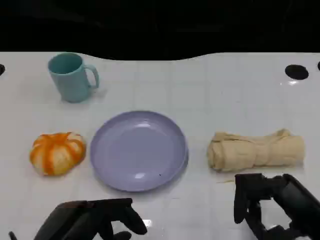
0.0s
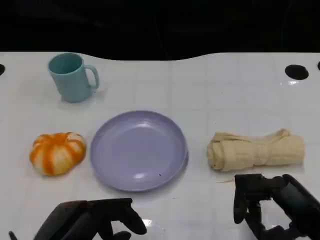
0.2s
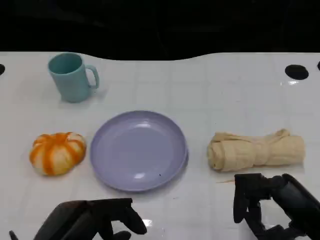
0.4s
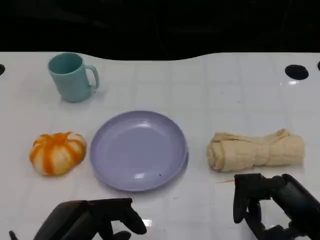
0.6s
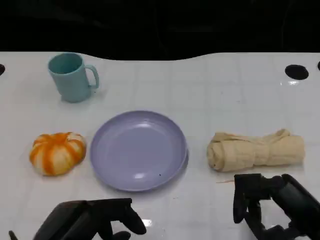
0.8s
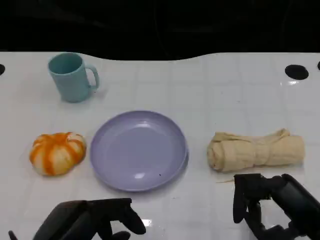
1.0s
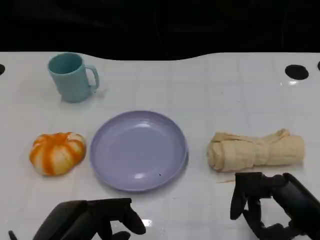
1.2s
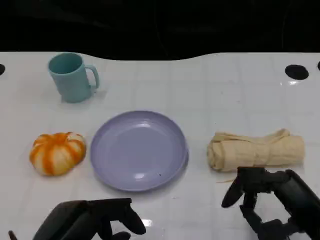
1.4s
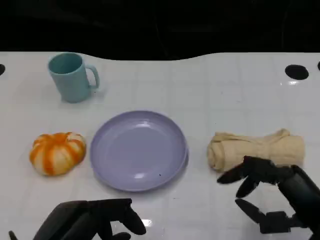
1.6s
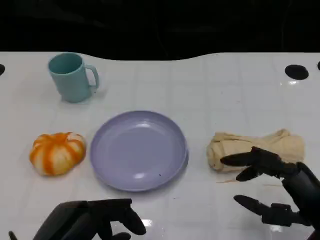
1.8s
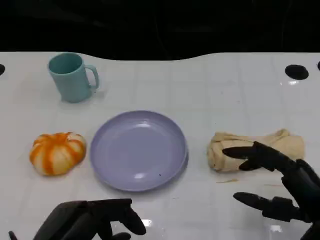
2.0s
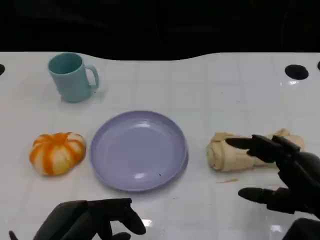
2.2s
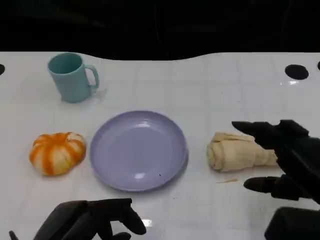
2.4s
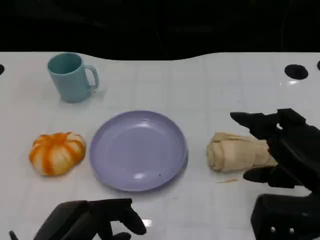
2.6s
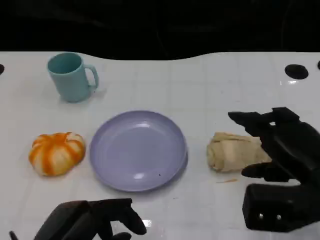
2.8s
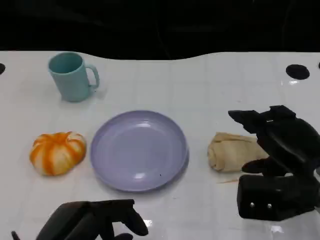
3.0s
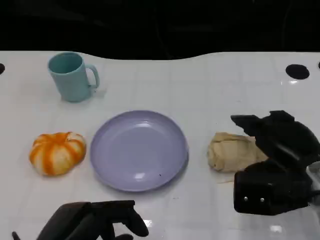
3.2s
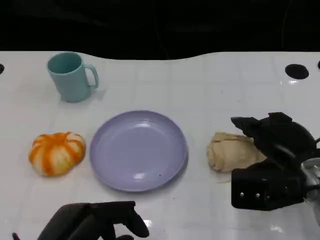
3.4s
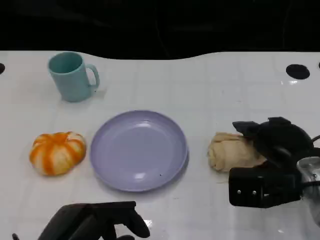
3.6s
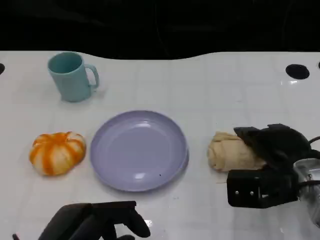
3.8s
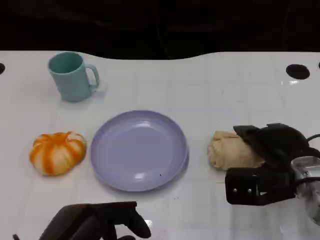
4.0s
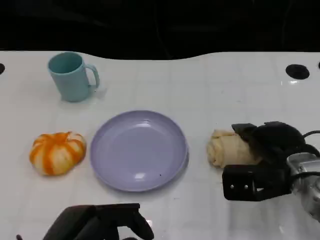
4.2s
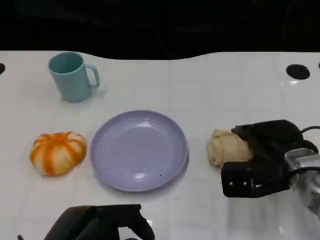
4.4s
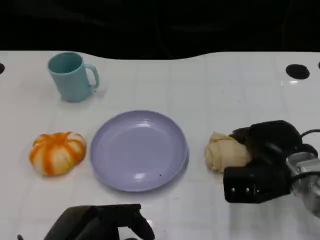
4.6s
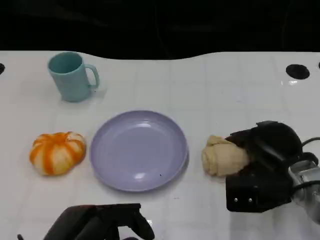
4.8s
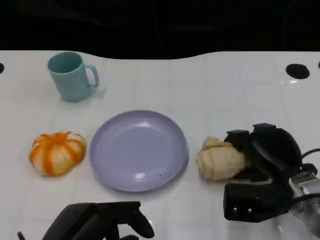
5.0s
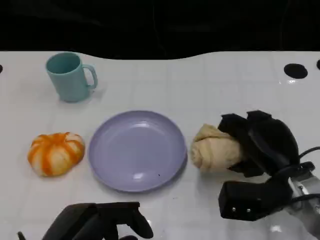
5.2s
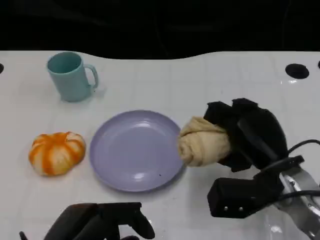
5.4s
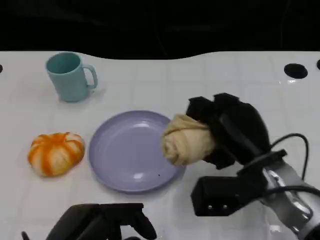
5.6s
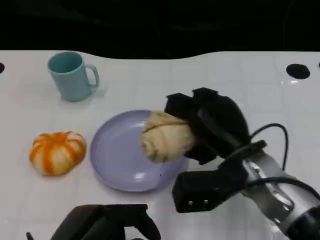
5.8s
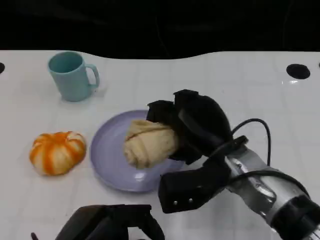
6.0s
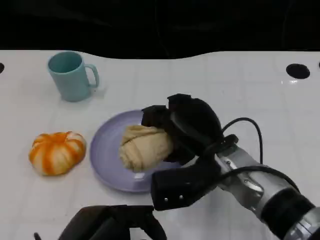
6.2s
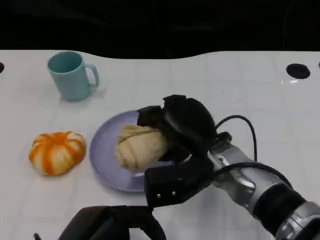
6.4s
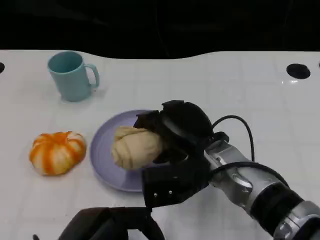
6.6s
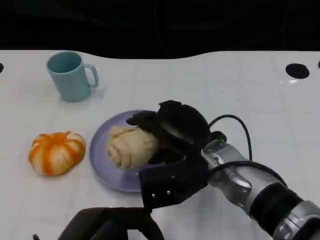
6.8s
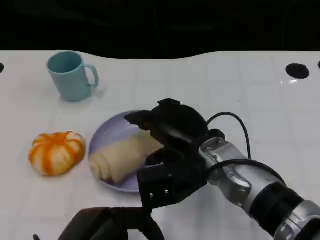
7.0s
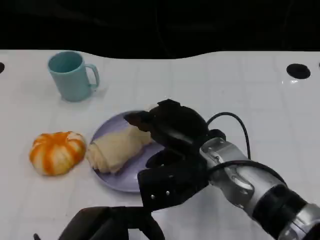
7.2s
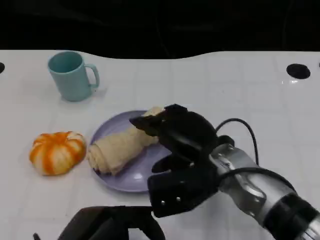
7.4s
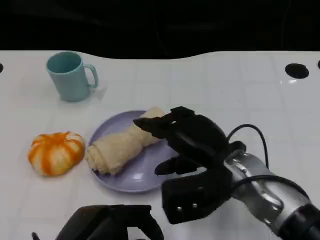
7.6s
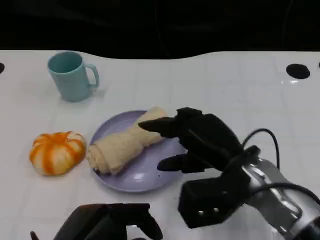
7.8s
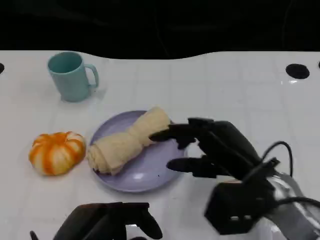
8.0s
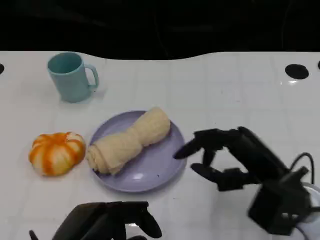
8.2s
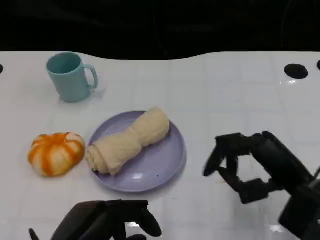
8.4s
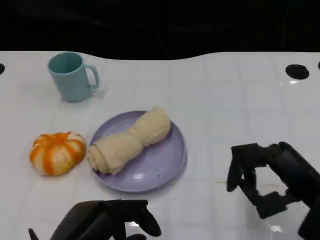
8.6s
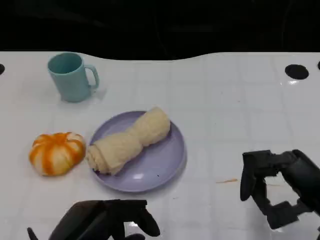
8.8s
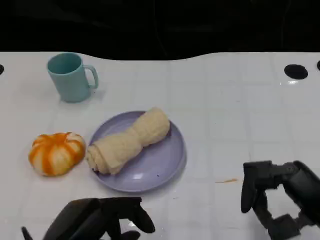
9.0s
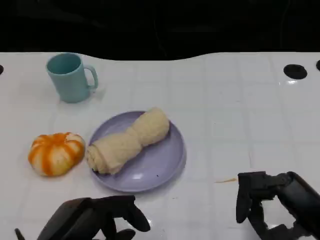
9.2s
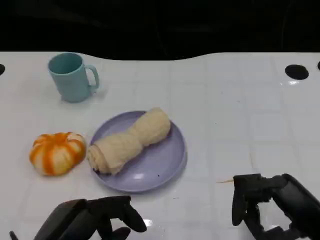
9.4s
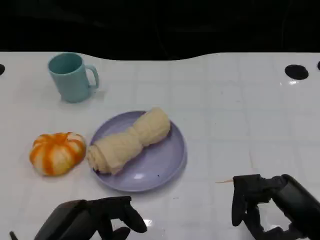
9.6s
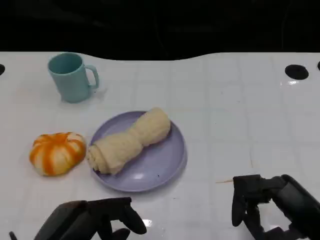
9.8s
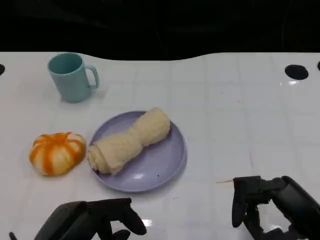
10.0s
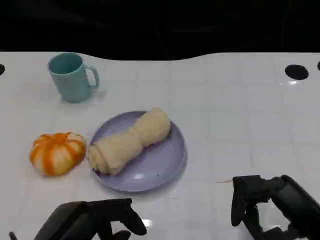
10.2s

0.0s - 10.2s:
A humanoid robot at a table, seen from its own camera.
Task of the whole recording: Grasp the towel on the left side of the plate with the left hand and place it into the plate.
0.0s - 1.4s: The hands stay close to where they were, moving slightly.
1.4s - 3.0s: The right hand moves forward, approximately 10 cm.
3.0s - 4.4s: The right hand changes place by roughly 5 cm.
4.4s - 5.8s: The right hand is displaced to the left by about 10 cm.
7.2s - 8.8s: The right hand moves to the right and backward, about 20 cm.
8.8s - 10.2s: The hands make only small movements.

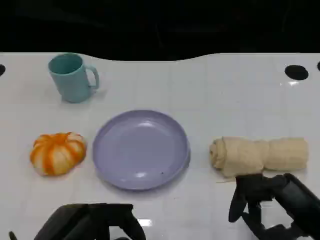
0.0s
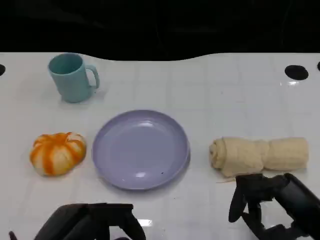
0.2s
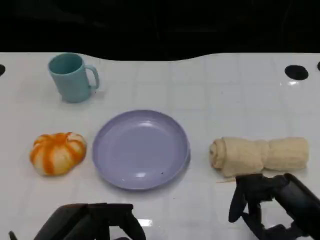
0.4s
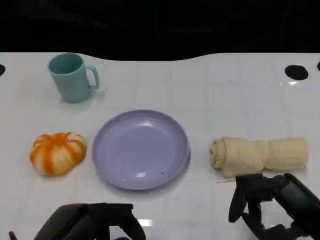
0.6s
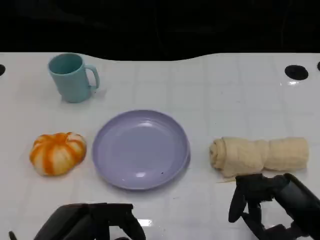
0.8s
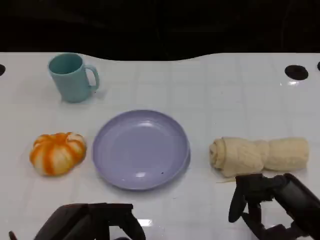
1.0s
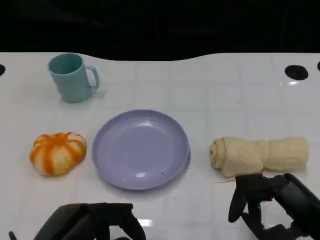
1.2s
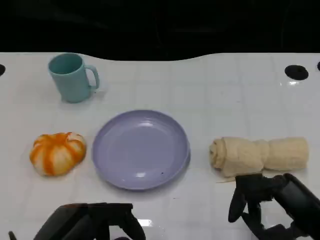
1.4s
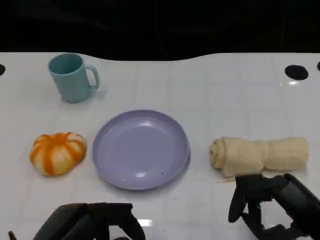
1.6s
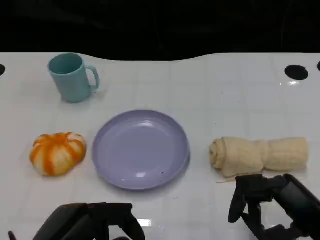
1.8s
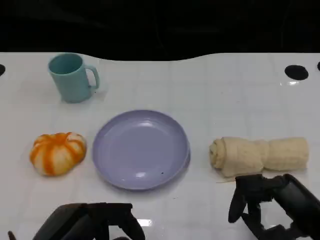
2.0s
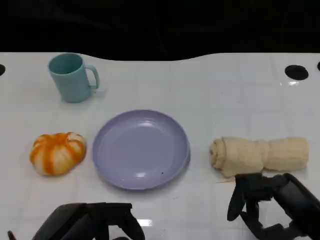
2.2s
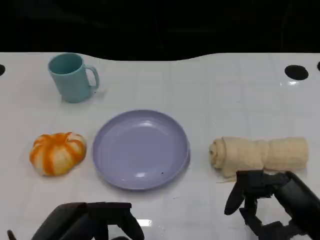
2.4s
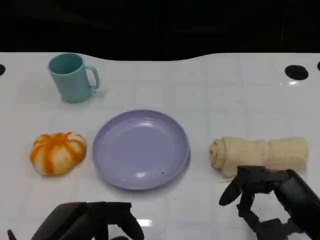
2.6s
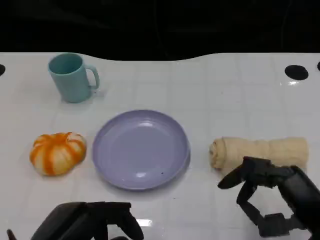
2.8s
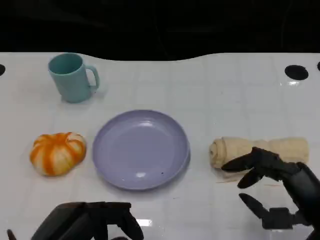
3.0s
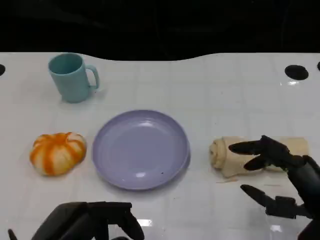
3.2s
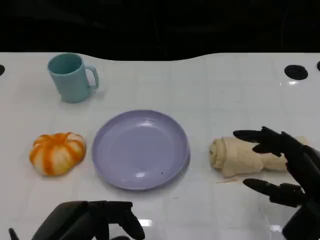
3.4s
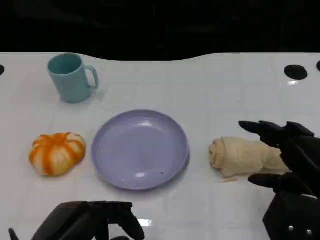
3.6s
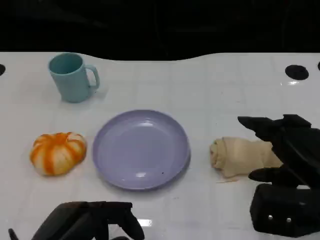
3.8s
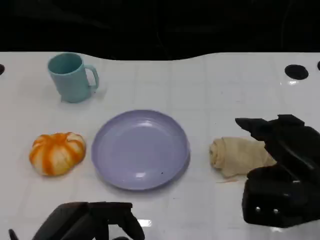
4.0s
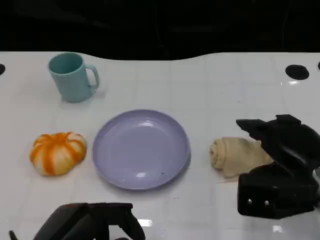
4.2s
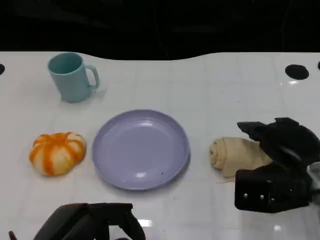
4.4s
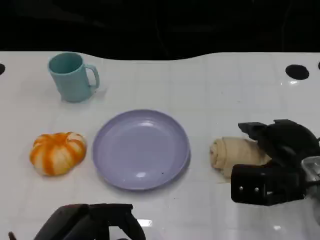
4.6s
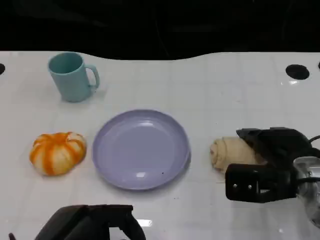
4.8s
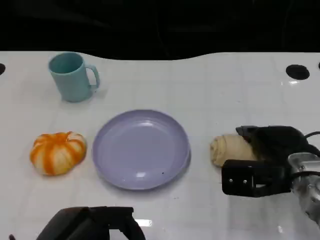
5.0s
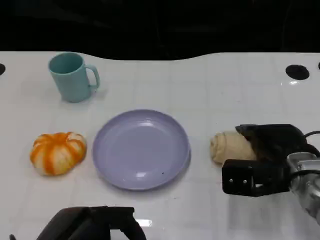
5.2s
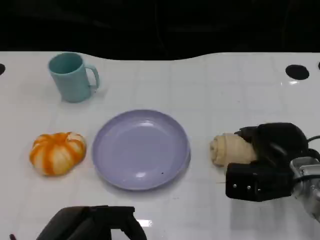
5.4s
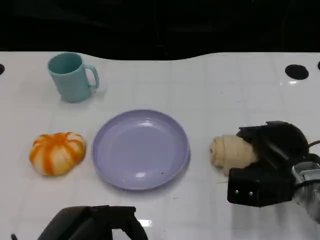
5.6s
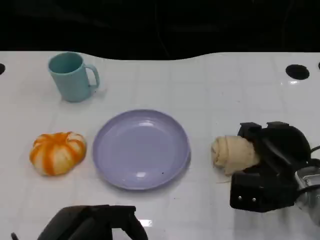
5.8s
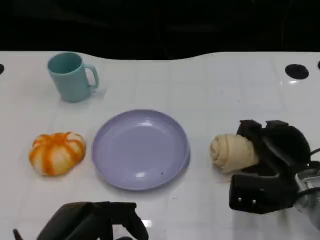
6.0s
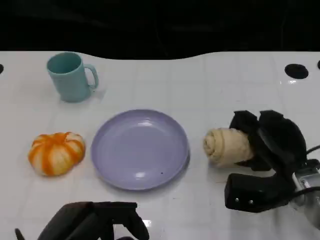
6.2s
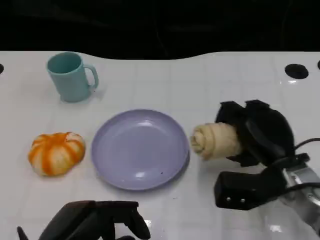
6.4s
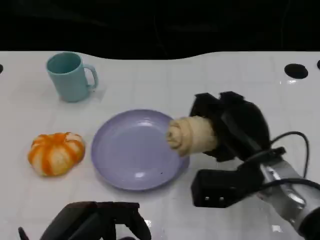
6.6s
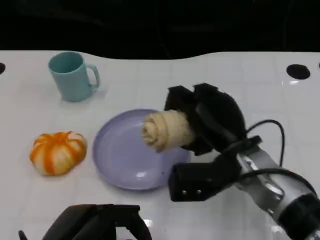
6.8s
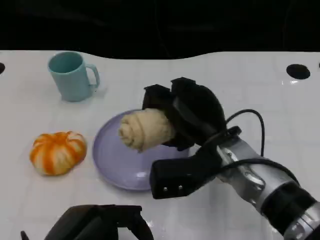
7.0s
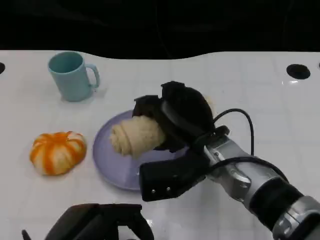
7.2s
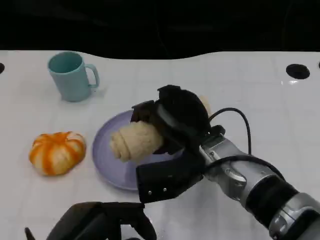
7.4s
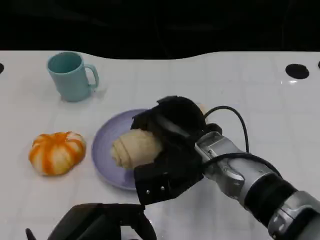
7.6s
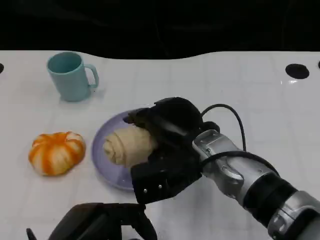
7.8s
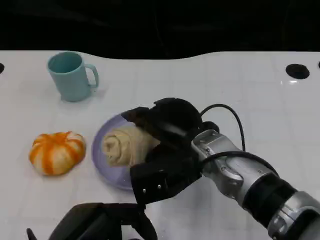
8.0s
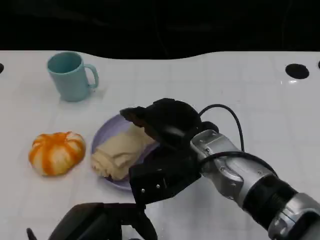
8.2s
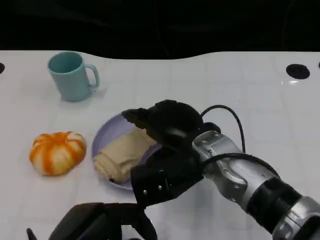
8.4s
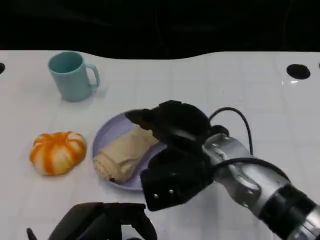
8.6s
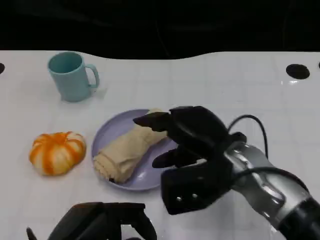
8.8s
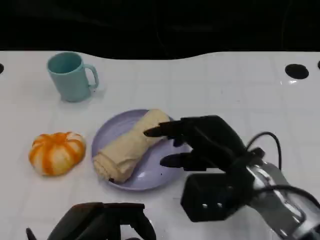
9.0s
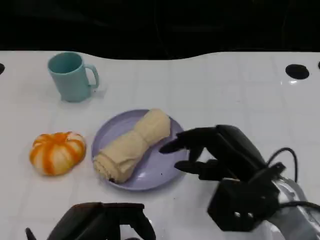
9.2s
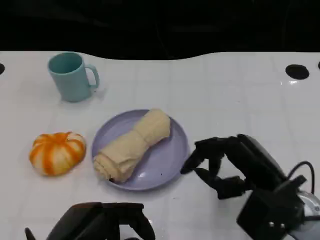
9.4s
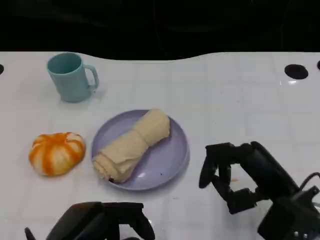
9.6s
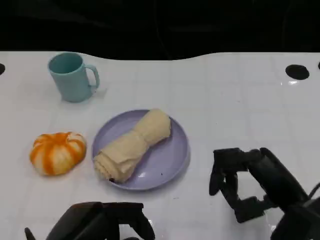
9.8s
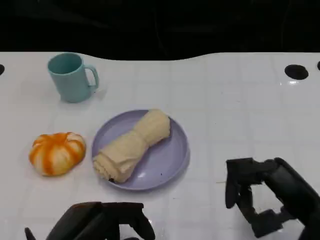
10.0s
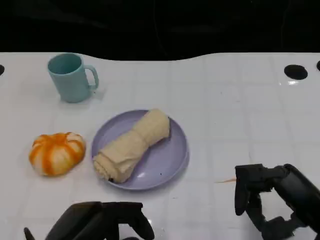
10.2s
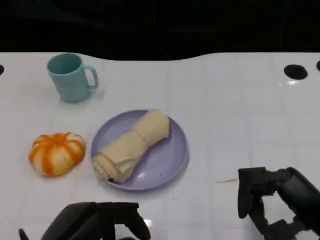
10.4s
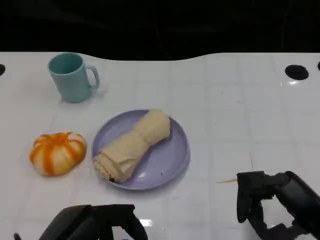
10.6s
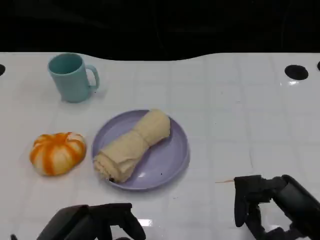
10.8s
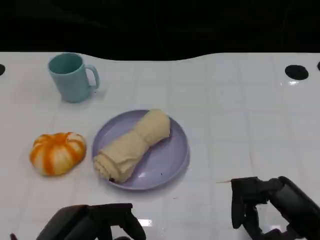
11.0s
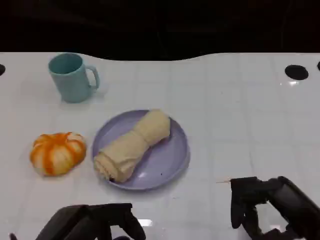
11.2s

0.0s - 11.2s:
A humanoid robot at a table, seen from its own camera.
Task of the whole recording: Grasp the towel on the left side of the plate with the left hand and place it into the plate.
0.0s - 1.6s: Neither hand changes place.
1.6s - 3.2s: The hands stay close to where they were, moving slightly.
3.2s - 4.8s: The right hand moves forward, approximately 10 cm.
6.4s - 8.0s: The right hand moves to the left, roughly 10 cm.
8.0s - 9.6s: The right hand moves to the right and backward, roughly 15 cm.
9.6s - 11.2s: The right hand shifts by roughly 5 cm.

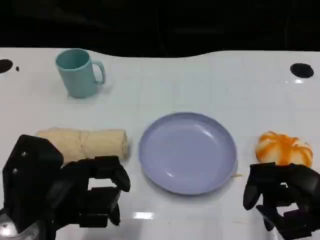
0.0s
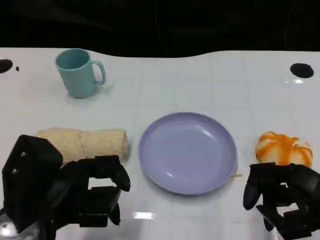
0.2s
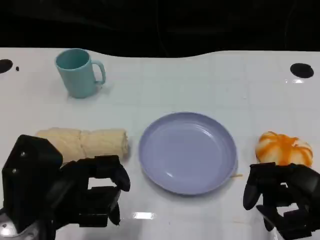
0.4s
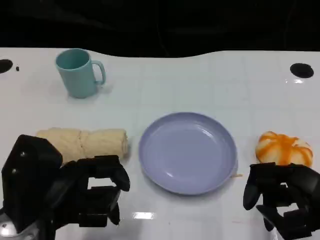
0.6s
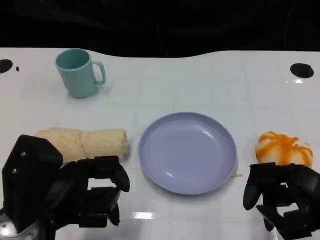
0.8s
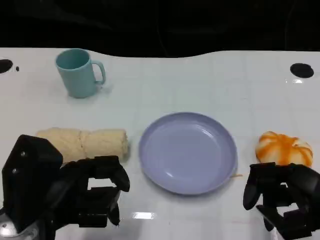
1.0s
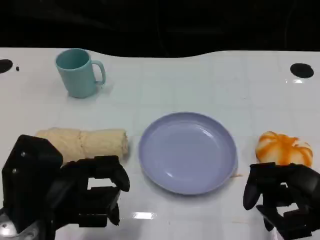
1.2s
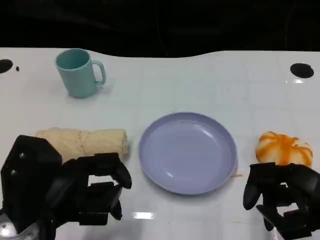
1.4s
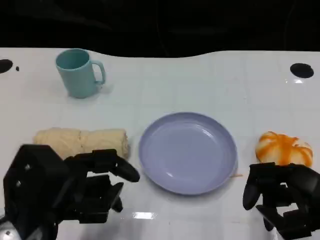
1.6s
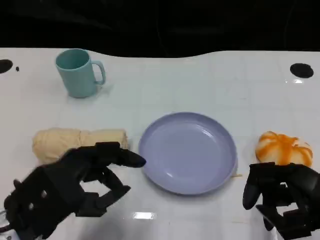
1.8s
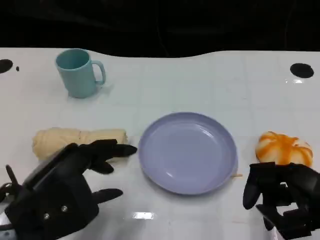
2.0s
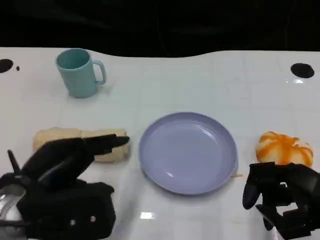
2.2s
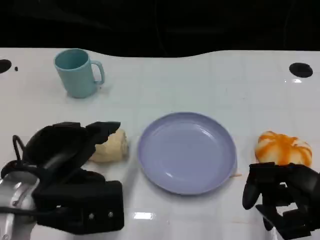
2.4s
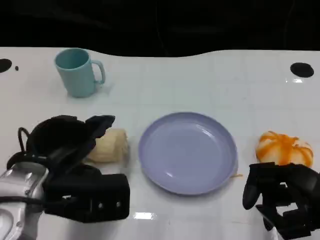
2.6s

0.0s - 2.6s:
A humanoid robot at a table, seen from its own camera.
Task of the whole recording: Grasp the towel on the left side of the plate with the left hand and place it into the plate.
0.0s - 1.2s: The two hands keep their place.
1.2s - 2.6s: The left hand shifts by approximately 5 cm.
